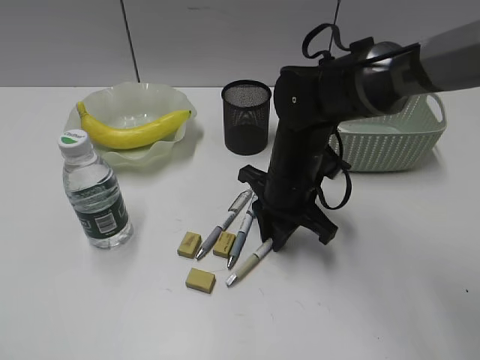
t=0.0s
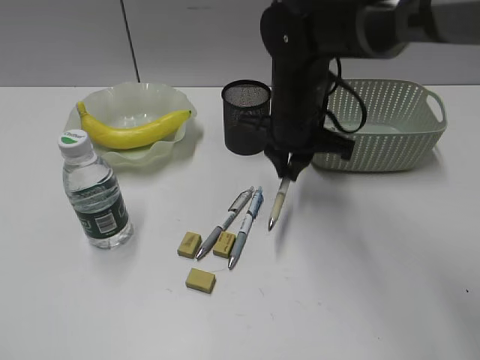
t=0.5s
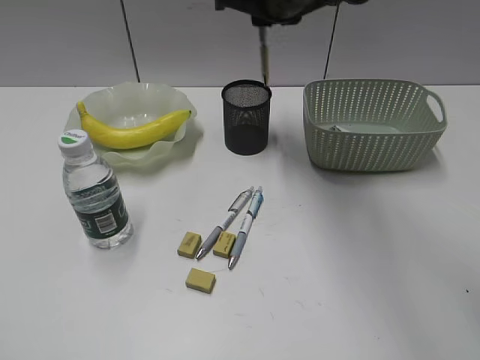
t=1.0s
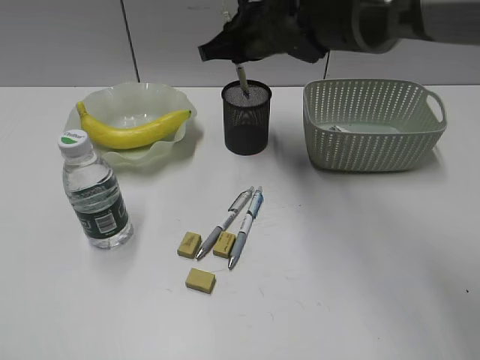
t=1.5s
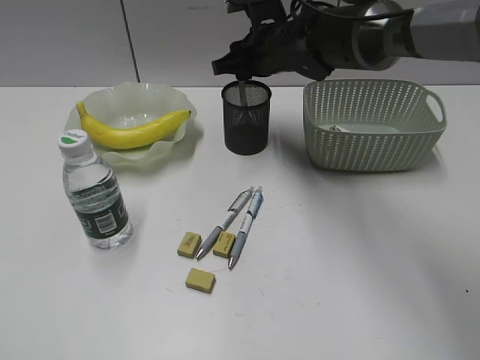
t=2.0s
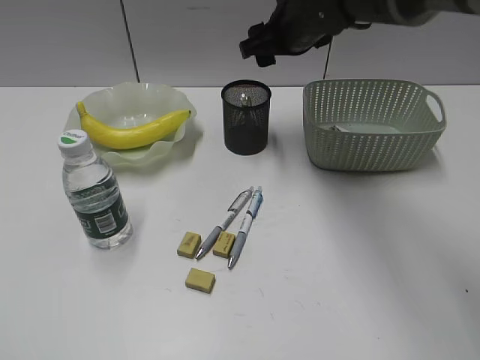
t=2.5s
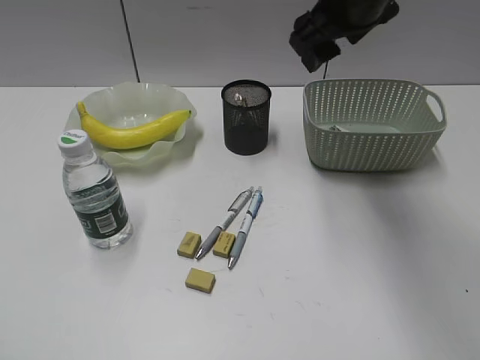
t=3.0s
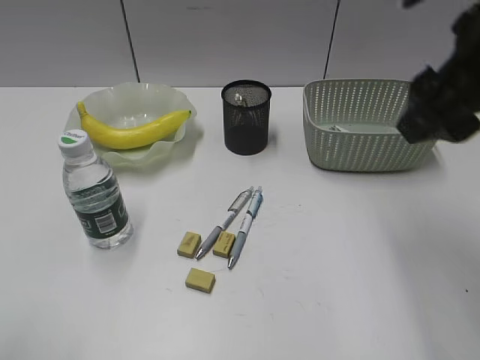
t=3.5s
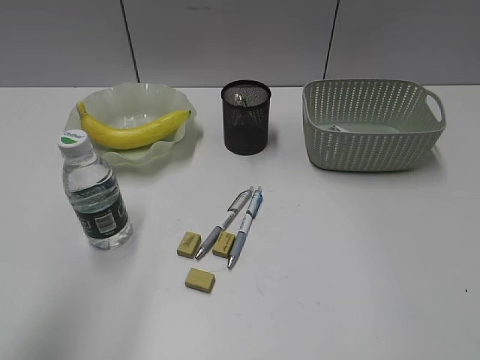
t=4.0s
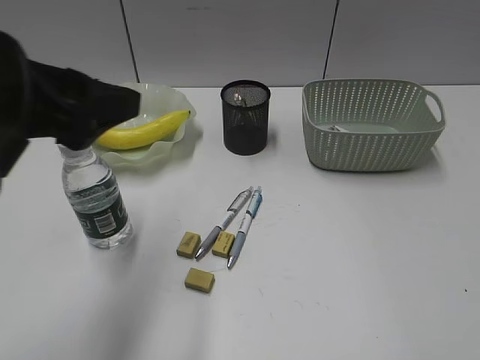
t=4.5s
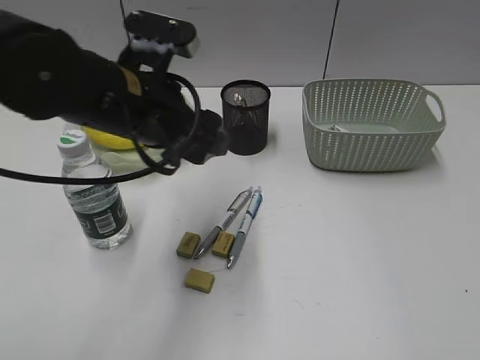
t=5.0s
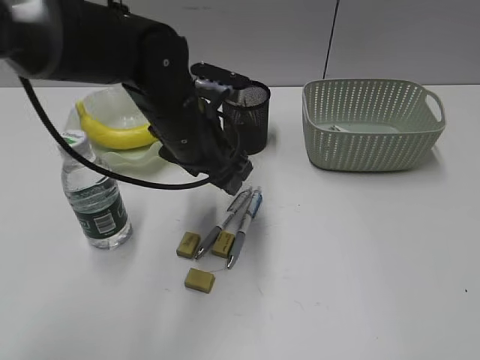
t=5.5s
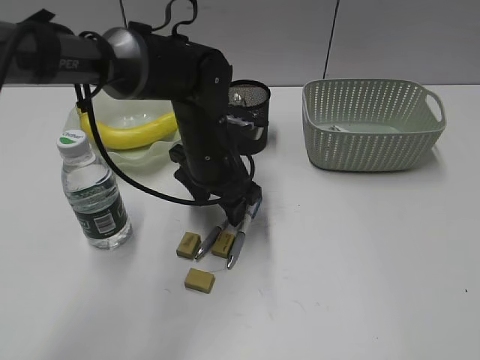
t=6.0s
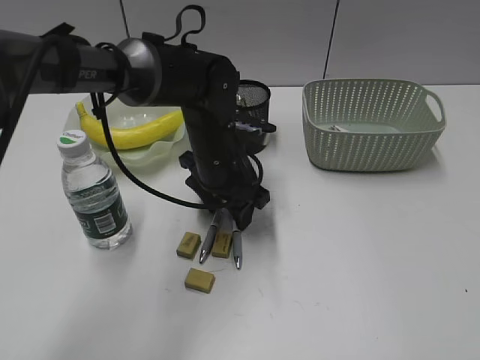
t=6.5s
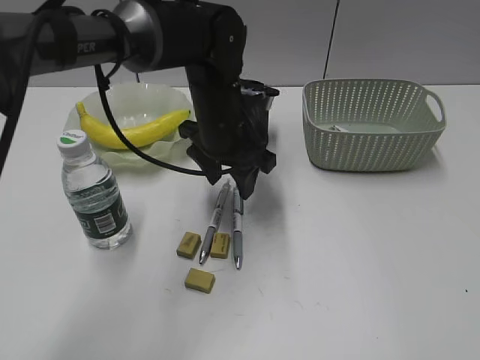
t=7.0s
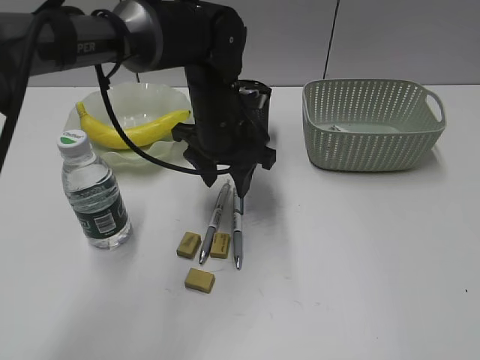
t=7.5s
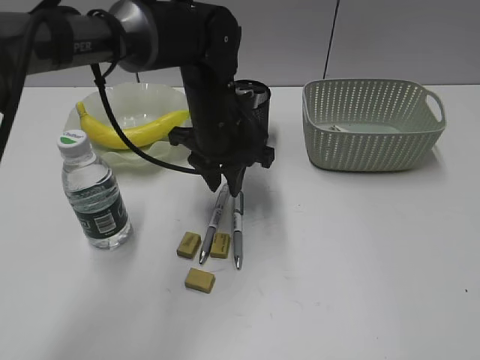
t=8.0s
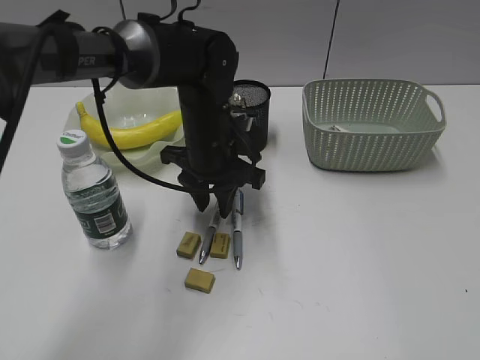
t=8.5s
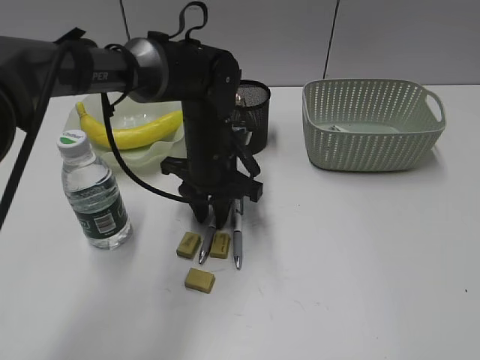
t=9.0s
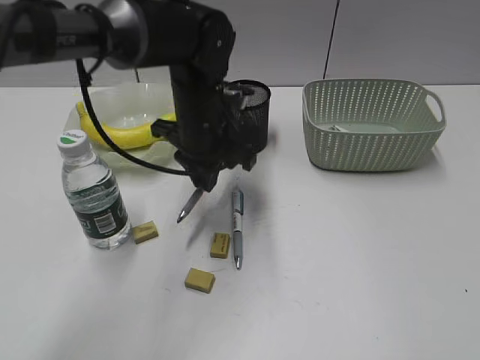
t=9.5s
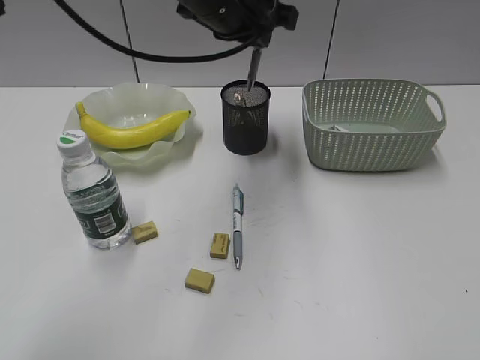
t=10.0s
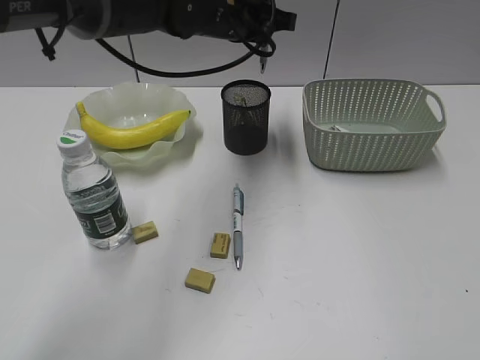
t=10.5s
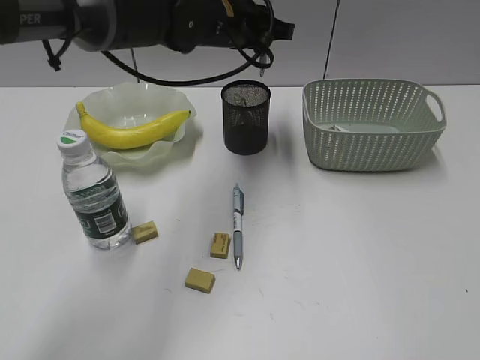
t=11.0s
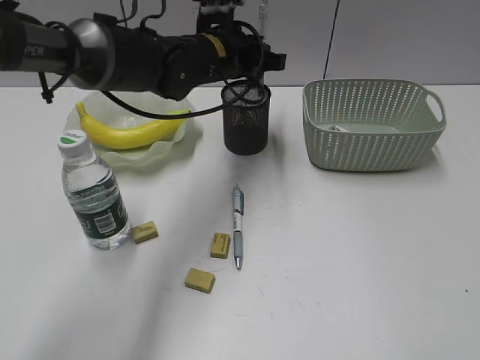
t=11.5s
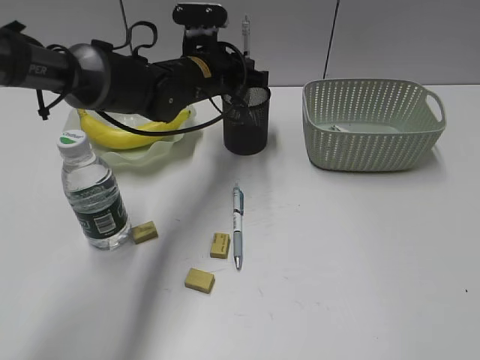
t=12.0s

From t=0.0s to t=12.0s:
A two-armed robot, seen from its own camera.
Step, from t=0.5s to t=2.0s: Place the yellow pen in pen holder with right gripper.
Step, from t=2.5s to t=9.0s: Grasp the gray pen with left gripper.
From t=0.0s to t=2.0s: The right gripper shifts some 15 cm forward and upward.
From t=2.0s to t=4.0s: The left gripper travels forward and to the right by approximately 15 cm. The right gripper travels backward and to the right by roughly 40 cm, and opens.
From t=4.0s to t=6.0s: The left gripper is displaced forward, to the right and downward by about 40 cm. The right gripper is displaced backward by some 10 cm.
From t=6.0s to t=8.0s: The left gripper closes.
From t=8.0s to t=10.0s: The left gripper travels upward by approximately 15 cm.
From t=10.0s to t=12.0s: The left gripper moves downward and forward, approximately 15 cm.

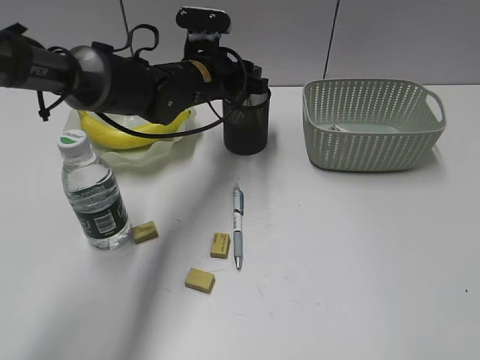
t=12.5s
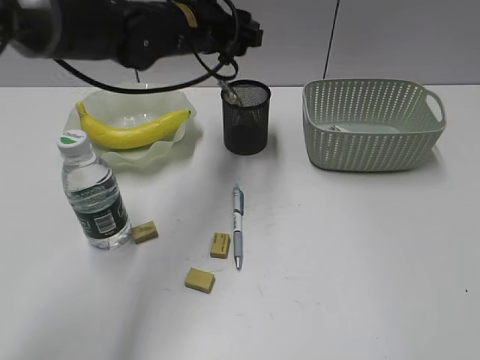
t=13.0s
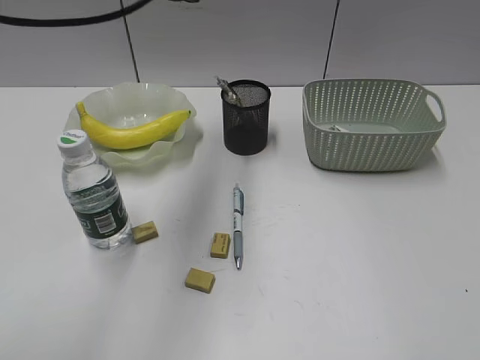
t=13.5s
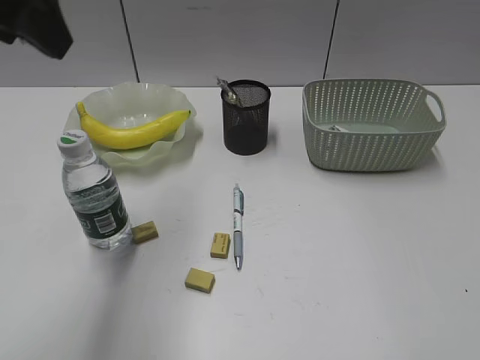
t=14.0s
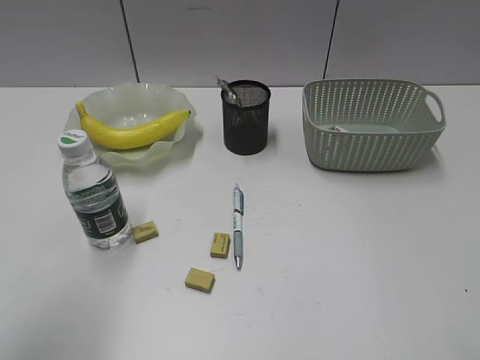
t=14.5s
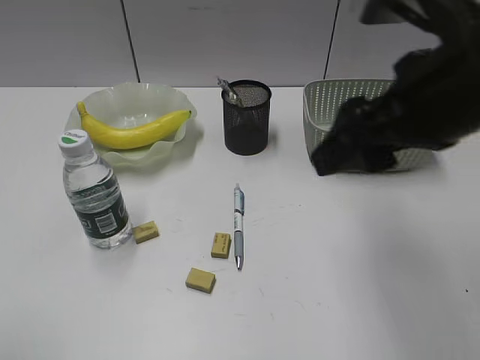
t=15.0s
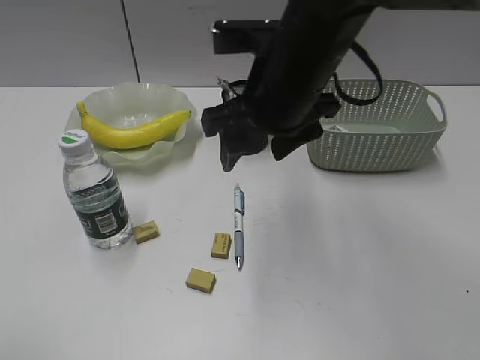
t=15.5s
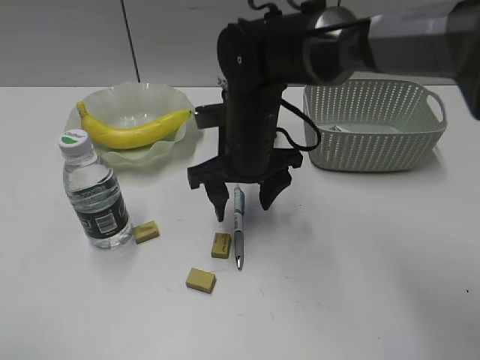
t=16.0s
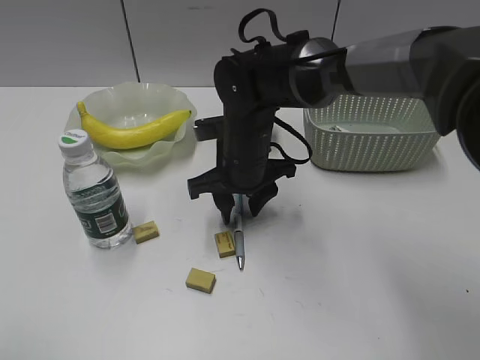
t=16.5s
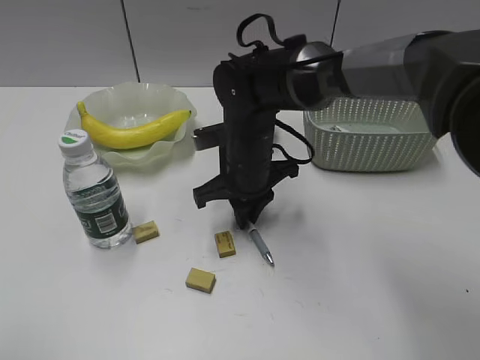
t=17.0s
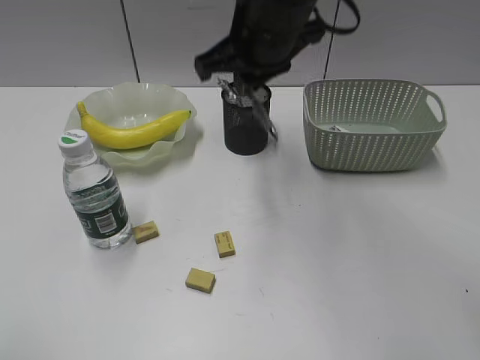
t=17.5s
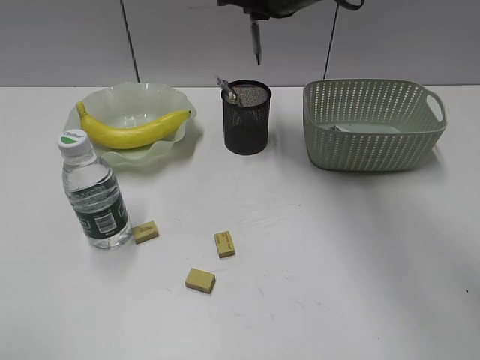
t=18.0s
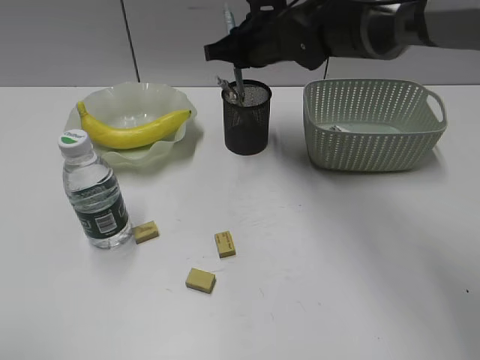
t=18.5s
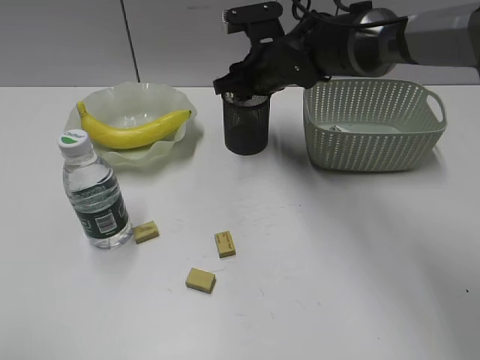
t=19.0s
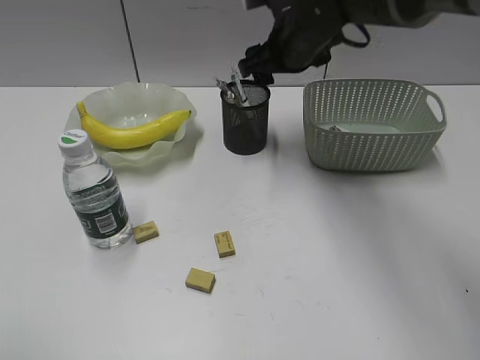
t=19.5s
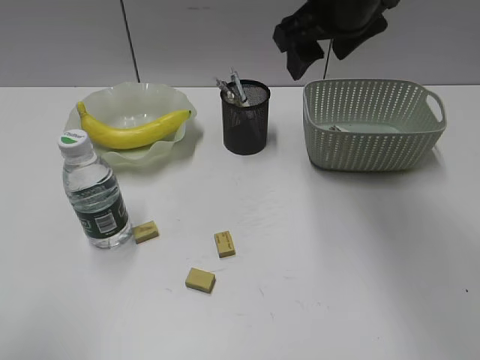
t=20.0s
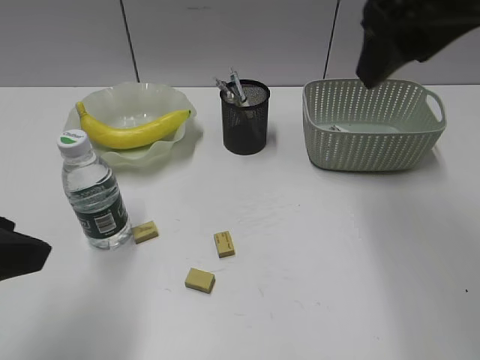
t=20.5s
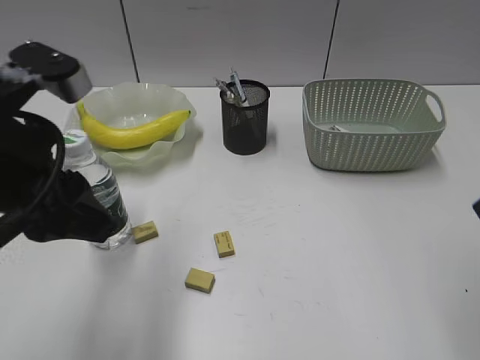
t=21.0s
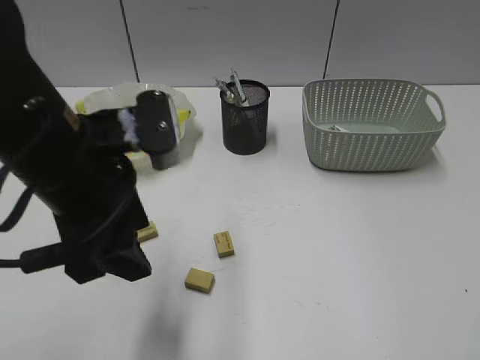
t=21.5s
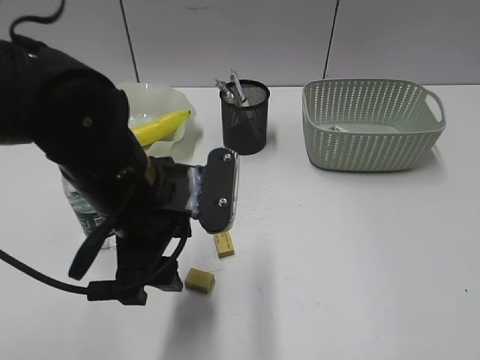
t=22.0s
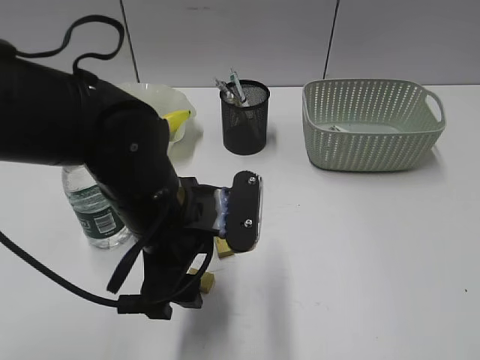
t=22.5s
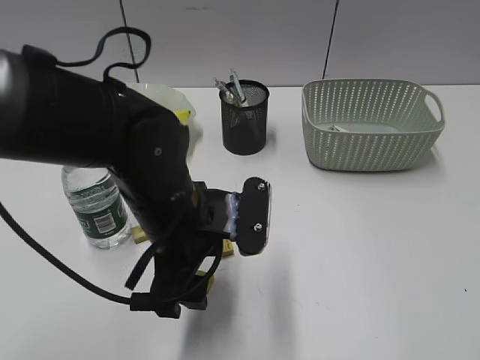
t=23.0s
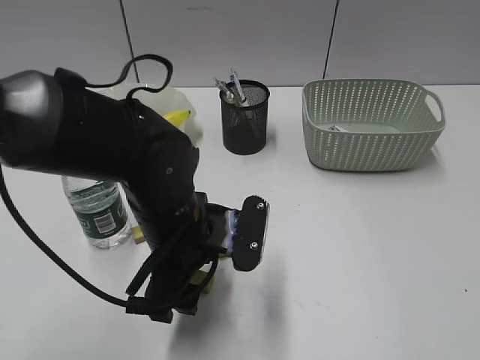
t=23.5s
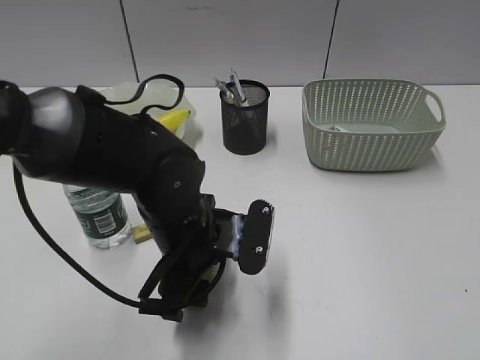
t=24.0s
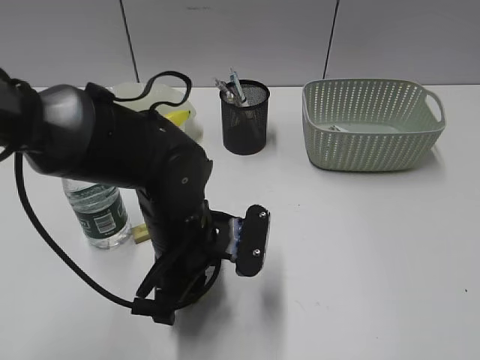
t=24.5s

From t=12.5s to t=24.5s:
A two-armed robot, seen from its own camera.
Step, from t=13.0s to t=16.5s: Grasp the blue pen with right gripper.
Step, from t=17.0s to t=19.0s: Place the blue pen in pen holder with right gripper.
Step, from t=19.5s to t=24.0s: Grasp the eraser with left gripper.
From t=12.5s to t=14.5s: The right gripper is displaced forward by roughly 5 cm. The left gripper heads backward, to the left and upward, covering roughly 40 cm.
From t=14.5s to t=16.5s: The left gripper heads backward and downward, covering about 10 cm. Meanwhile the right gripper heads forward, to the left and downward, covering about 40 cm, and closes.
From t=16.5s to t=18.5s: The right gripper moves forward and upward, roughly 15 cm, and closes.
From t=18.5s to t=20.5s: The right gripper heads backward, upward and to the right, covering about 25 cm, and opens; the left gripper moves forward and to the right, approximately 15 cm.
From t=20.5s to t=22.5s: The right gripper is displaced backward and to the right by some 30 cm. Meanwhile the left gripper travels to the right, downward and forward by roughly 20 cm.
From t=22.5s to t=24.5s: The left gripper moves some 5 cm, and closes its fingers.

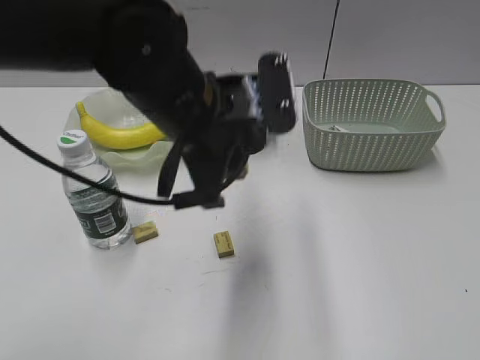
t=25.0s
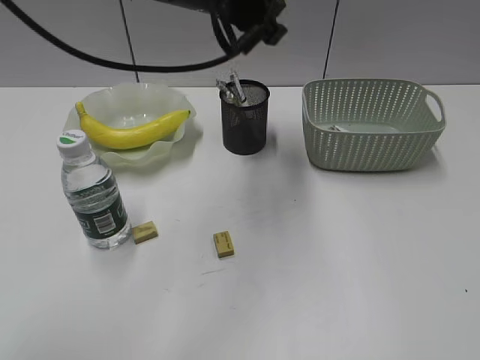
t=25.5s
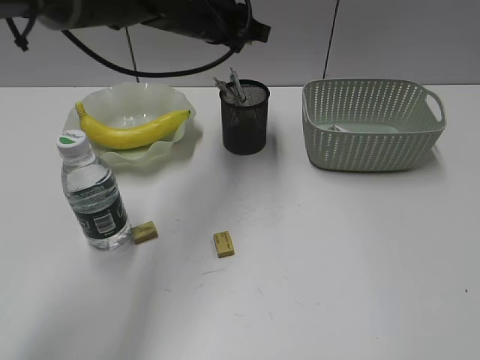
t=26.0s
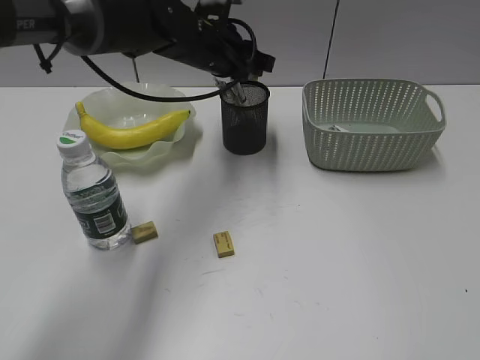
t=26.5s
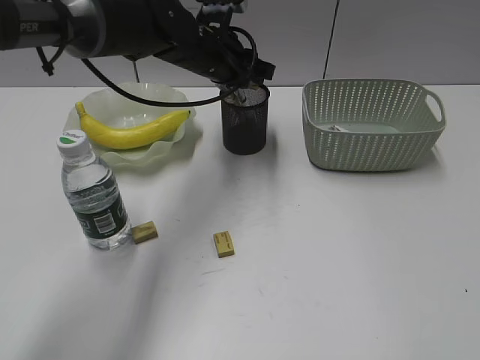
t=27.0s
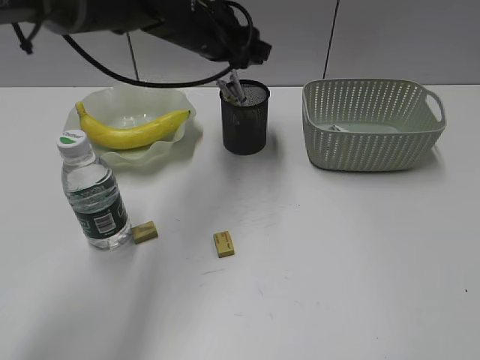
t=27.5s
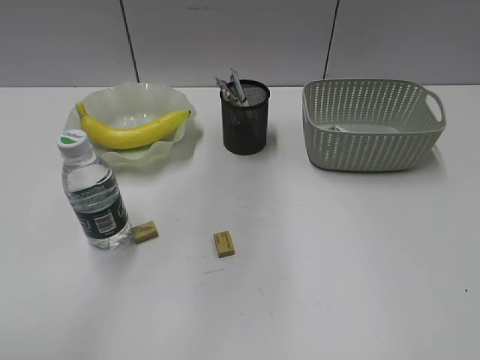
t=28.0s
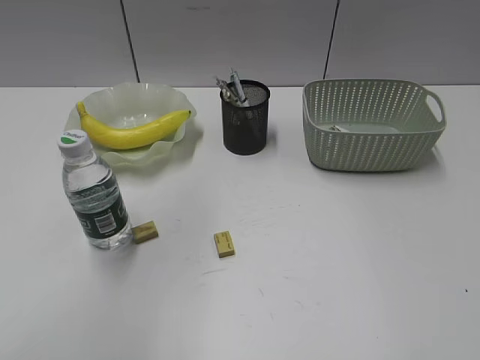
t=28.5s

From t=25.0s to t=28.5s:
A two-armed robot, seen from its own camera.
Step, from t=25.0s to t=27.0s: Place the eraser in pen holder with left gripper.
From t=25.0s to t=27.0s: The left gripper heads forward, covering some 20 cm.
From t=27.0s to t=28.5s: The left gripper is displaced upward, backward and to the left by about 40 cm.
